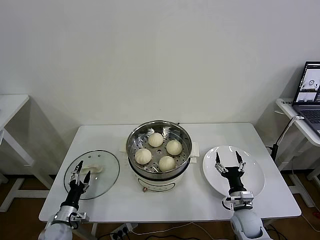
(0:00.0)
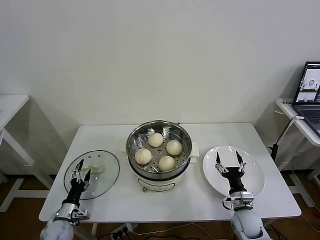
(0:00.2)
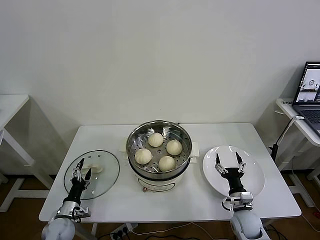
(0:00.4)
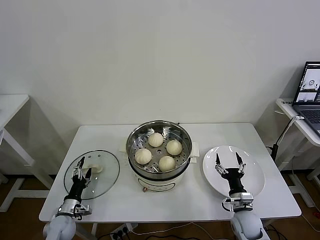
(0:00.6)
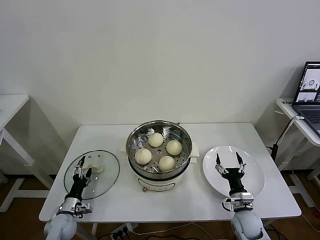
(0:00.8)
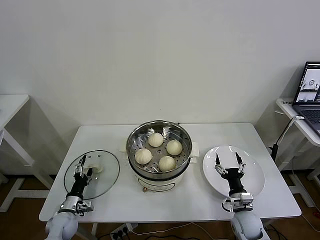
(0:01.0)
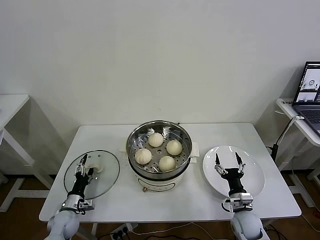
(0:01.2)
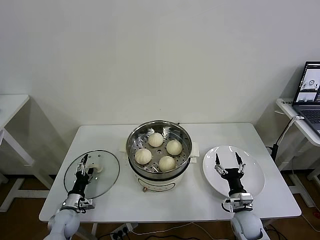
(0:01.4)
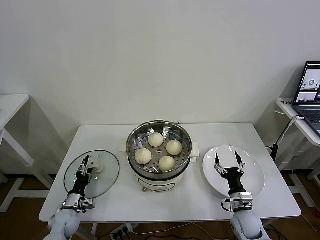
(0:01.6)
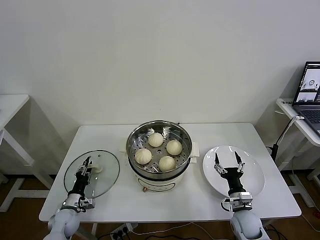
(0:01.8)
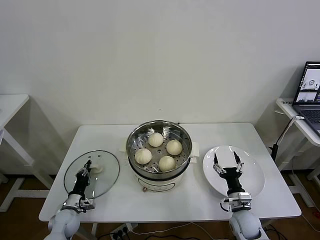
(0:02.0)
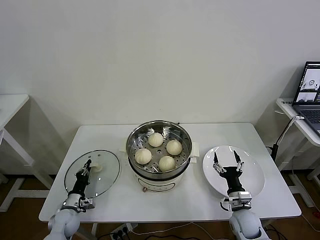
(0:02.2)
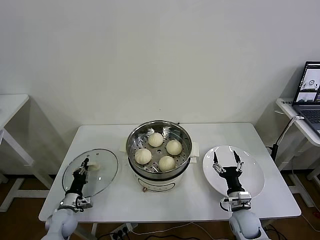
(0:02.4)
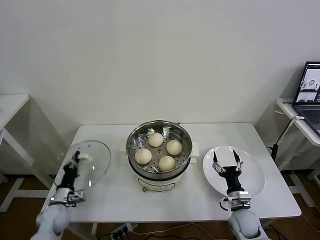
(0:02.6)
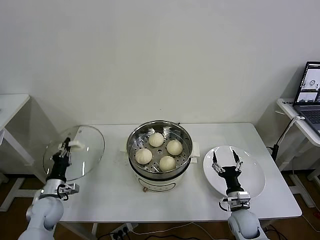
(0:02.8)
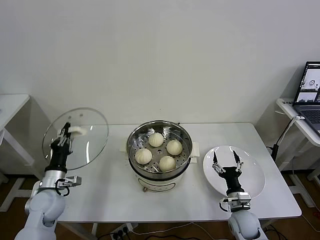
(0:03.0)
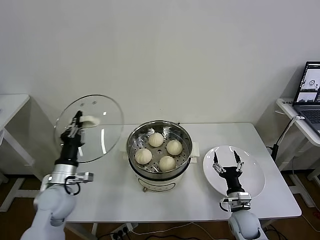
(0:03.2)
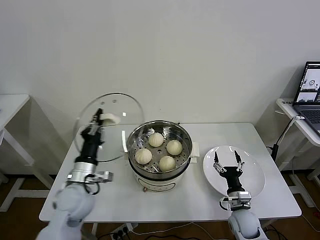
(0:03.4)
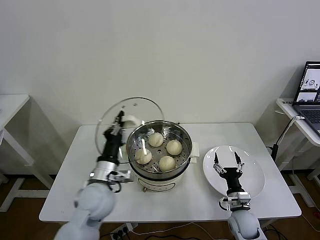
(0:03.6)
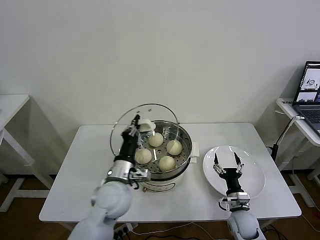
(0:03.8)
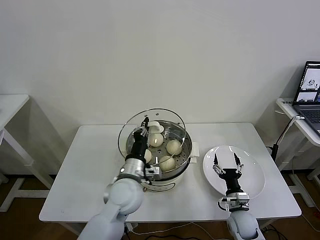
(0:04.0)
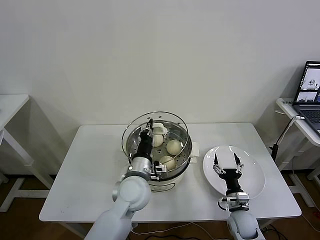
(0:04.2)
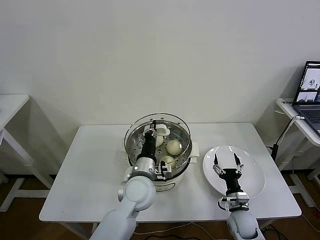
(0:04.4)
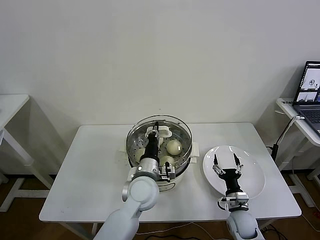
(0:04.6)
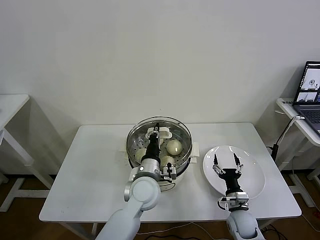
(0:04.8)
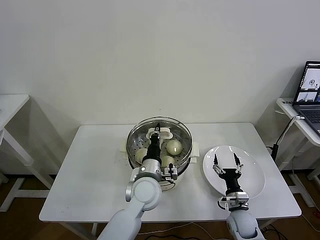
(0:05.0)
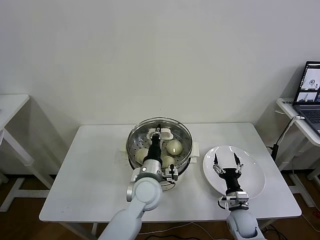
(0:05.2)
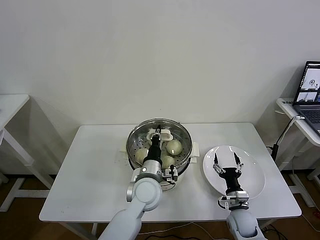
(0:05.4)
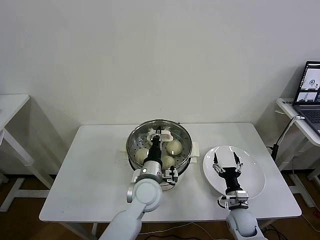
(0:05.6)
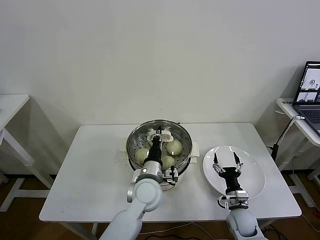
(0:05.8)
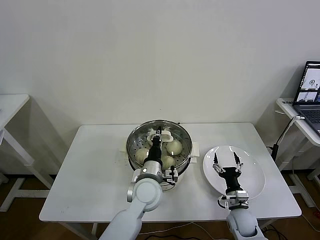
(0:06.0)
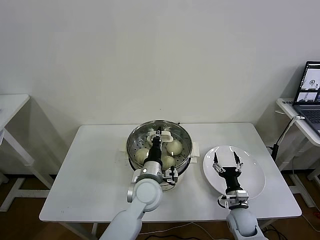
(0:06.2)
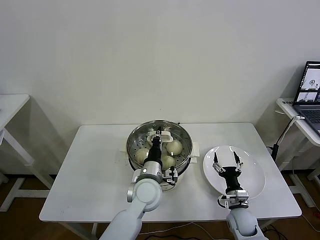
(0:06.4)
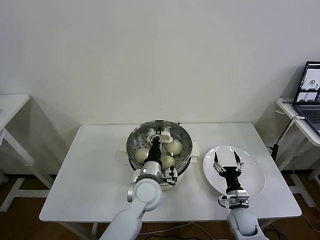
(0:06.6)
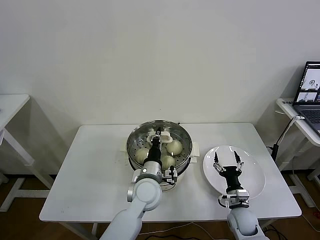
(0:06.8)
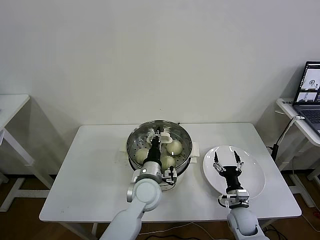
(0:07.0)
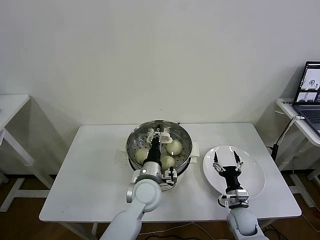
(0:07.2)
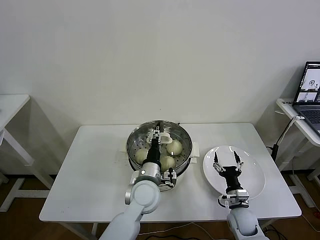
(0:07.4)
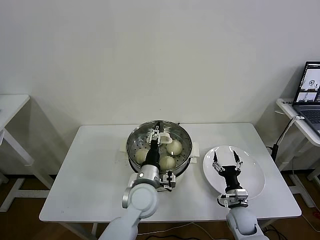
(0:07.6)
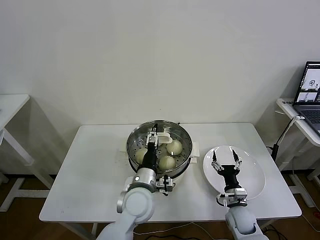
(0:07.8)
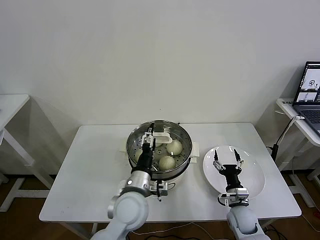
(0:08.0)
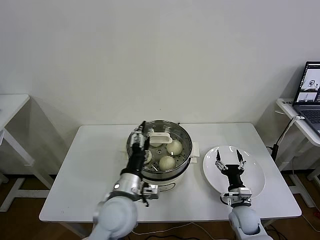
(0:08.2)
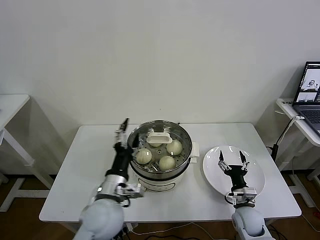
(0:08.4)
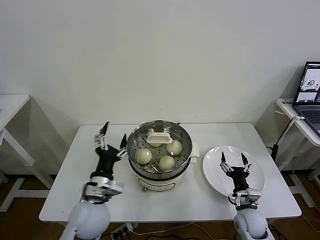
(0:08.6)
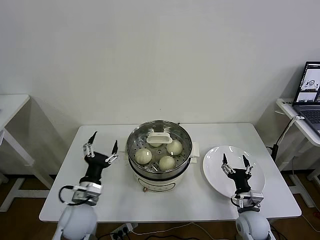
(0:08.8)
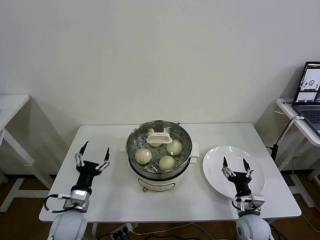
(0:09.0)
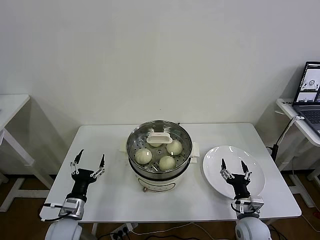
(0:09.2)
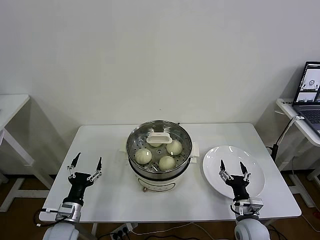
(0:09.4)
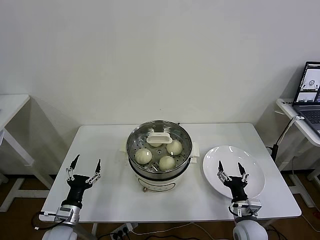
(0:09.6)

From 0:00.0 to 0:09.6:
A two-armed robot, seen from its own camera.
Task of the whole recording: take steamed baozi put them in steamer then cover it.
Step, from 0:00.0 to 0:02.2: Grasp the pot lid with left gripper.
Step, from 0:02.4 to 0:07.2: Place the pot lid on the steamer with left gripper.
From 0:00.0 to 0:01.6: The left gripper heads forward, covering about 5 cm.
From 0:01.6 to 0:03.2: The left gripper heads upward, covering some 20 cm, and closes up.
From 0:03.2 to 0:04.8: The left gripper goes roughly 25 cm to the right.
From 0:04.8 to 0:06.4: There are only small adjustments of the grippers.
From 0:06.4 to 0:08.0: The left gripper changes place by roughly 5 cm, and opens up.
From 0:08.0 to 0:09.6: The right gripper moves backward, roughly 5 cm. Meanwhile the left gripper shifts approximately 25 cm to the left and downward.

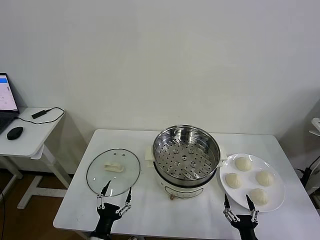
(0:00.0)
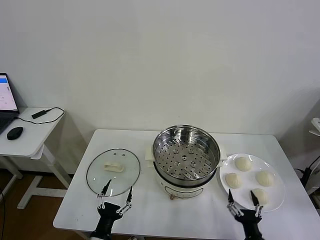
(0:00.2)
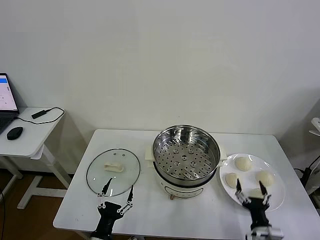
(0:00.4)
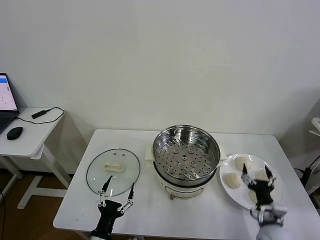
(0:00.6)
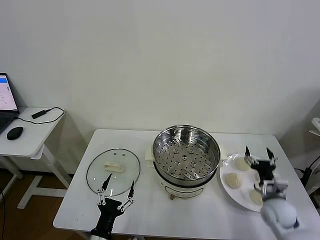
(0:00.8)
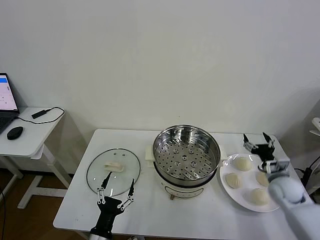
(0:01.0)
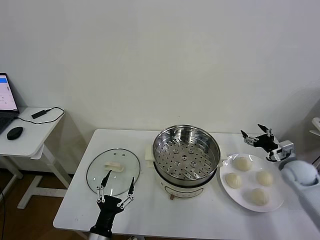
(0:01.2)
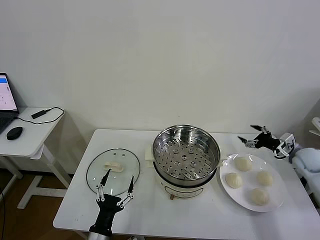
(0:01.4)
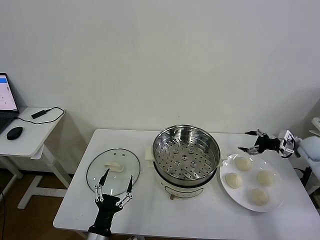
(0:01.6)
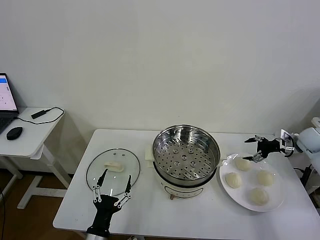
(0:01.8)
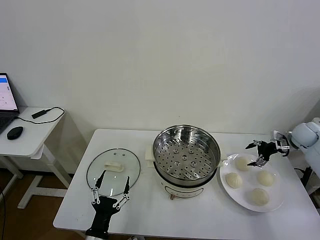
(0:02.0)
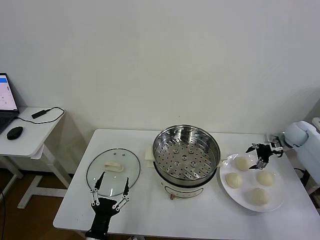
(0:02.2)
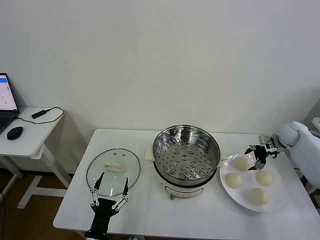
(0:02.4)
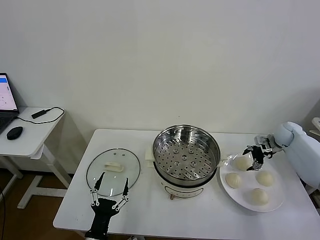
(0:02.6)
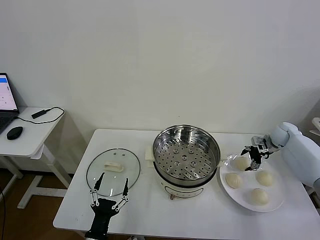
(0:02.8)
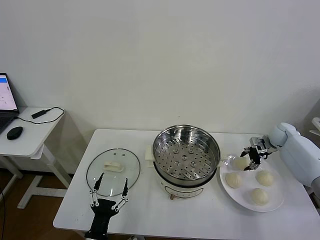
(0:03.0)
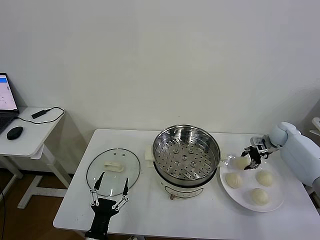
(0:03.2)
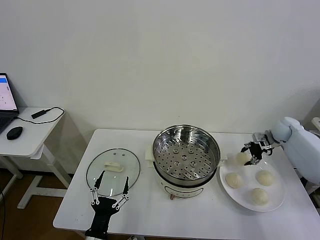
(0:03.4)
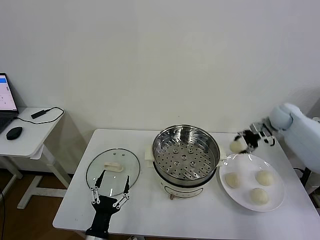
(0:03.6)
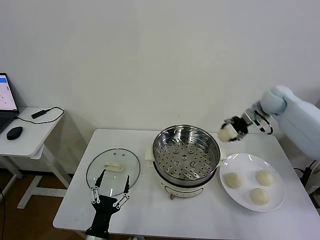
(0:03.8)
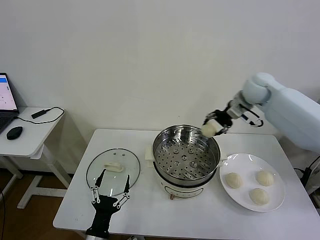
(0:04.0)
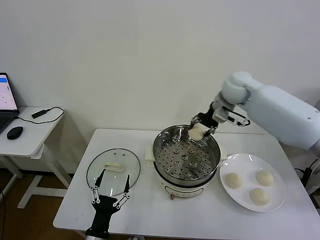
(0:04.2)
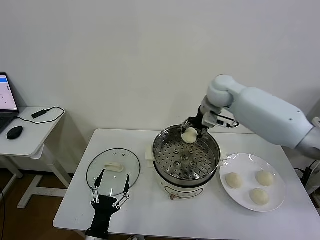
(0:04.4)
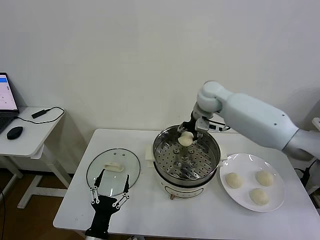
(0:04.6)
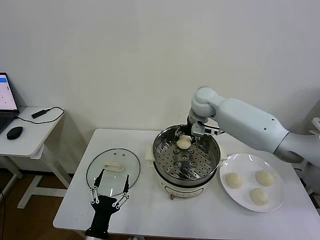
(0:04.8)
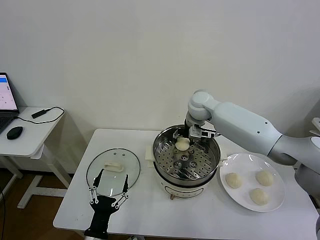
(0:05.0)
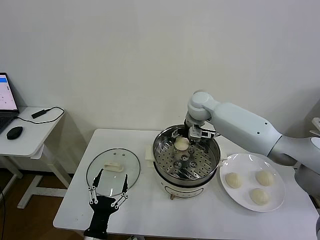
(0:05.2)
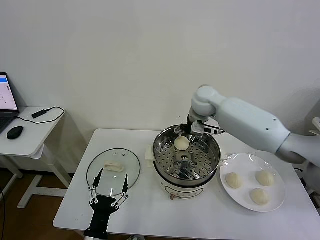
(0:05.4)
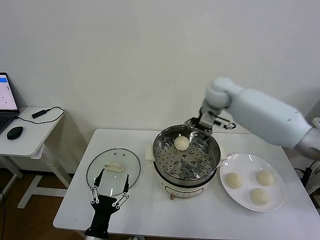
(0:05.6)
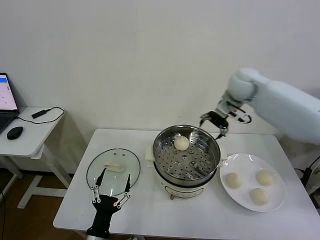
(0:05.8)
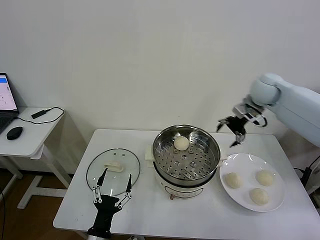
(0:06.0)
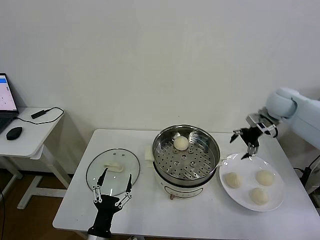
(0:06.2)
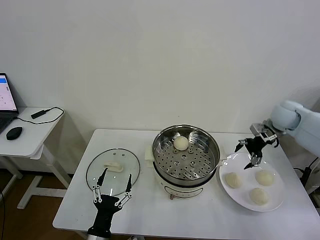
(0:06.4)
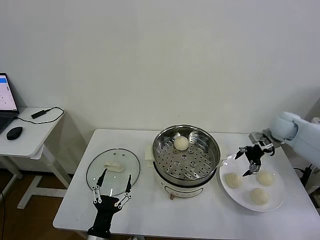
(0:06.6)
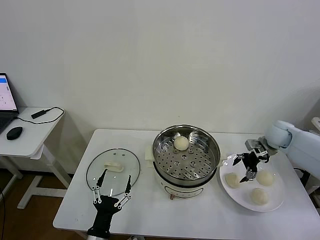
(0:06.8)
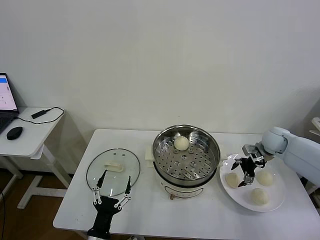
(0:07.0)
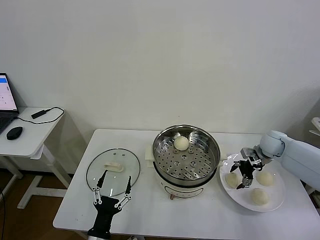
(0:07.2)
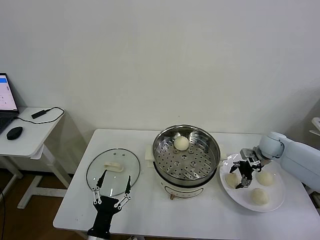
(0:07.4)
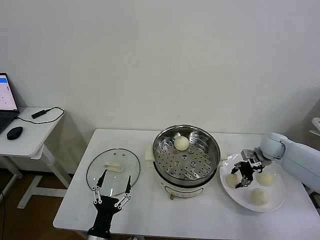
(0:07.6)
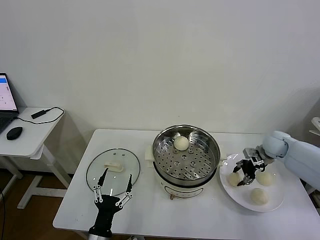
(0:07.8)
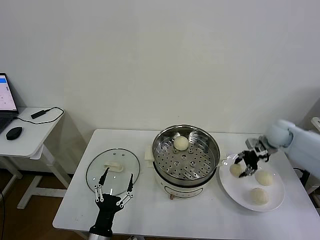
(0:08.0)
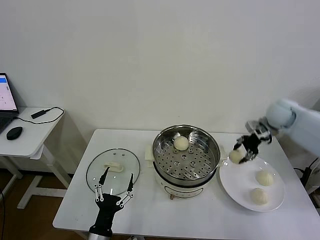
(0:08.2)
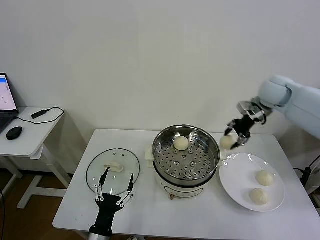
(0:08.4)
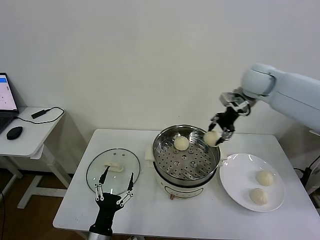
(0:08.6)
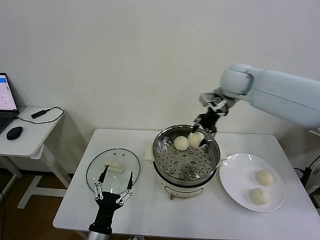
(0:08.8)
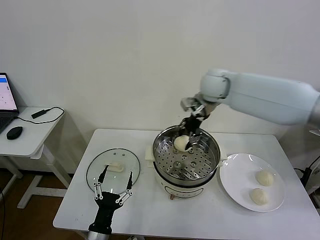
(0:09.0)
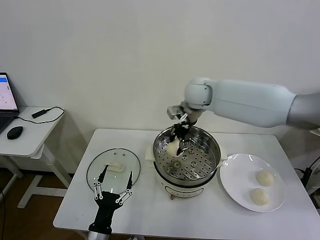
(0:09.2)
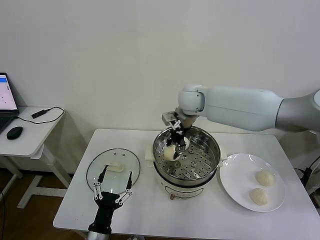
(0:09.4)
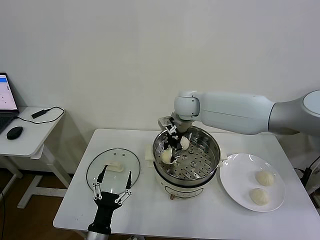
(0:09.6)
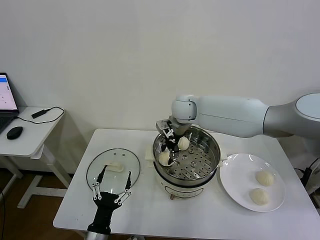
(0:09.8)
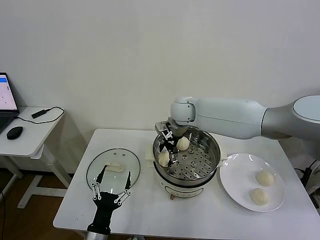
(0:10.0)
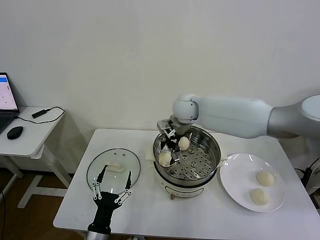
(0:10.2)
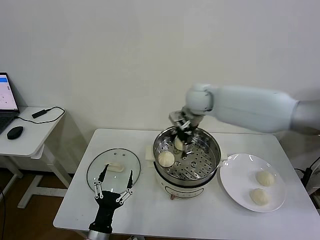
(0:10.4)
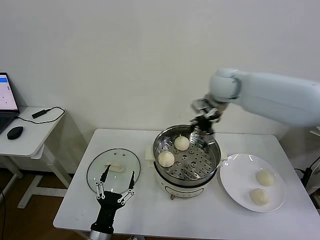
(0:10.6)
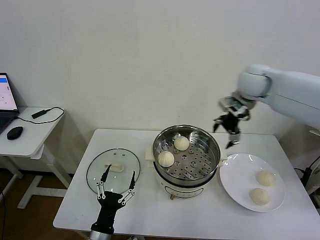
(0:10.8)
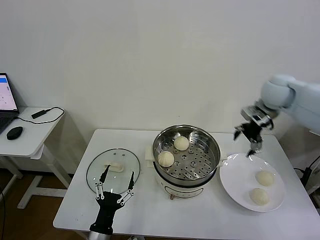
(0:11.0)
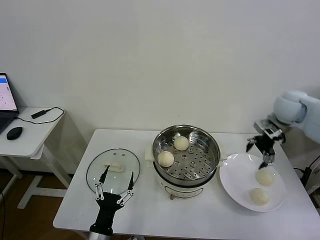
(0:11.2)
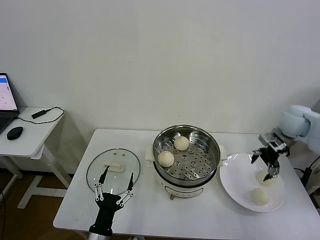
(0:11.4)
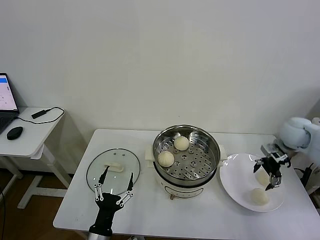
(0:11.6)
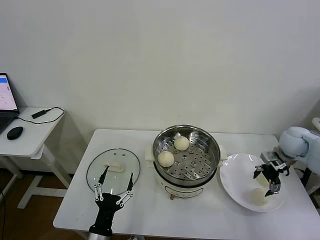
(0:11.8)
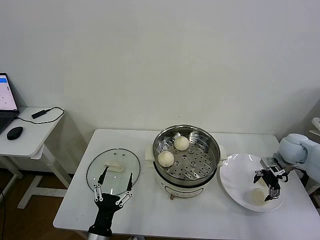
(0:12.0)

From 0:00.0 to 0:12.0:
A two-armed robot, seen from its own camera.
Task of the whole recording: take steamed baozi put them in steamer then cover it.
Step, from 0:00.0 to 0:03.0: Grasp the baozi in the plate with right gripper.
Step, from 0:03.2 to 0:05.0: Place the baozi on the steamer with right gripper.
Step, from 0:05.2 to 0:07.6: Grasp the baozi in the plate with right gripper.
Step, from 0:07.8 to 0:10.0: Place the baozi on the steamer with right gripper.
From 0:01.6 to 0:03.0: The right gripper goes some 10 cm forward and to the left, and closes up.
From 0:03.0 to 0:04.4: The right gripper travels to the left and upward by about 35 cm.
From 0:04.4 to 0:06.0: The right gripper heads to the right, covering some 20 cm, and opens its fingers.
From 0:06.0 to 0:07.6: The right gripper goes roughly 20 cm downward, and closes its fingers.
From 0:07.6 to 0:09.0: The right gripper heads to the left and upward, covering some 35 cm.
From 0:09.0 to 0:10.4: The right gripper travels downward and back again, roughly 10 cm each way, and opens.
From 0:10.4 to 0:12.0: The right gripper shifts roughly 35 cm to the right and downward.
